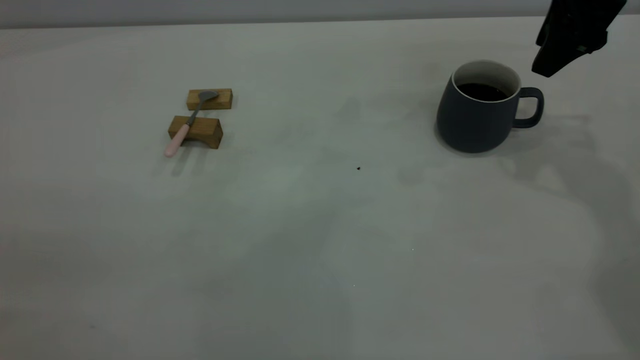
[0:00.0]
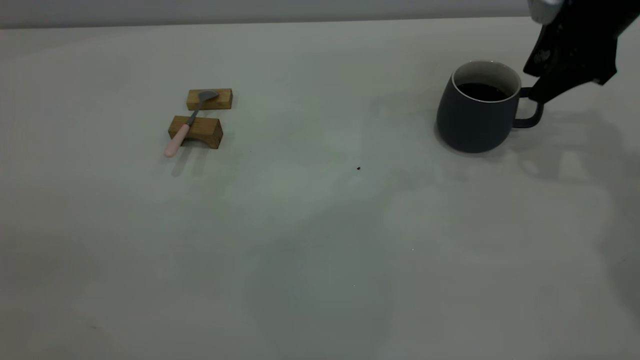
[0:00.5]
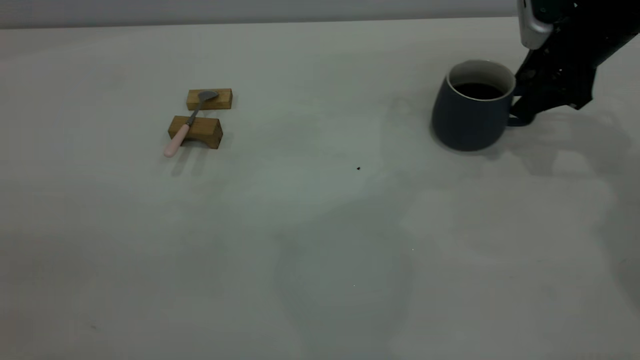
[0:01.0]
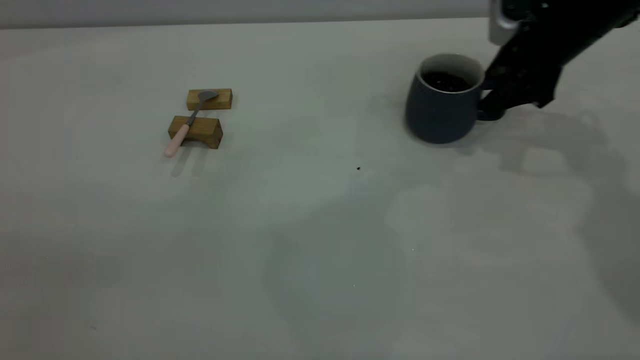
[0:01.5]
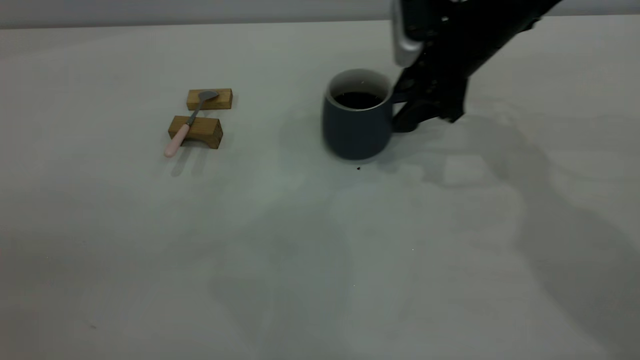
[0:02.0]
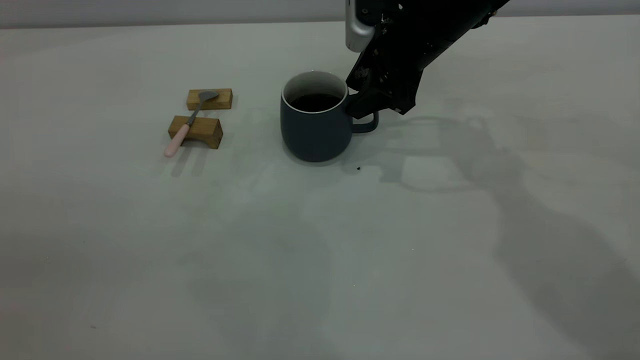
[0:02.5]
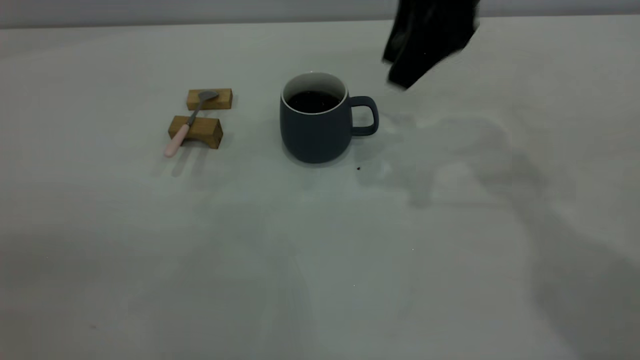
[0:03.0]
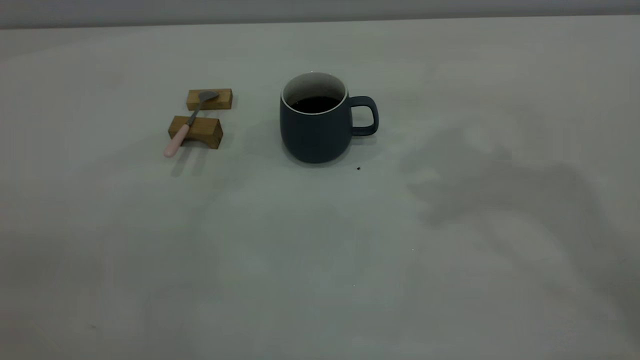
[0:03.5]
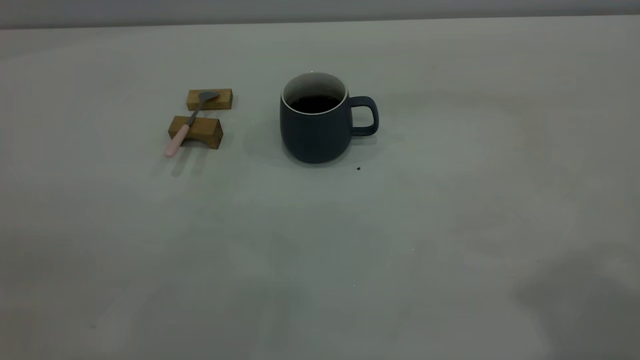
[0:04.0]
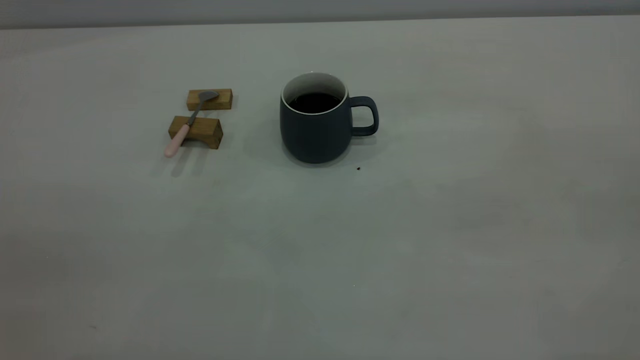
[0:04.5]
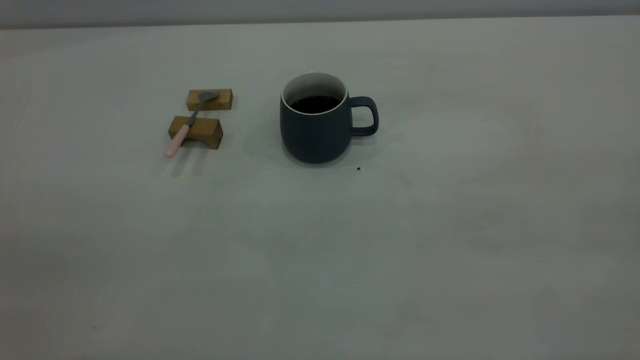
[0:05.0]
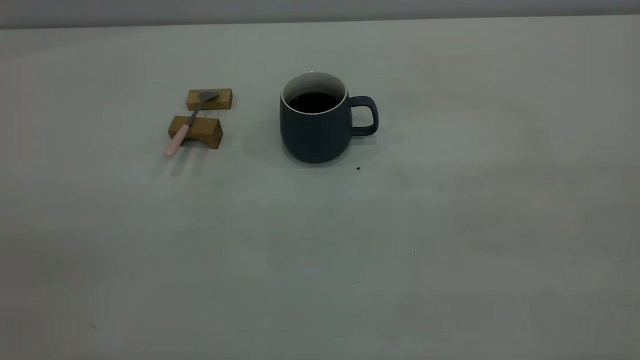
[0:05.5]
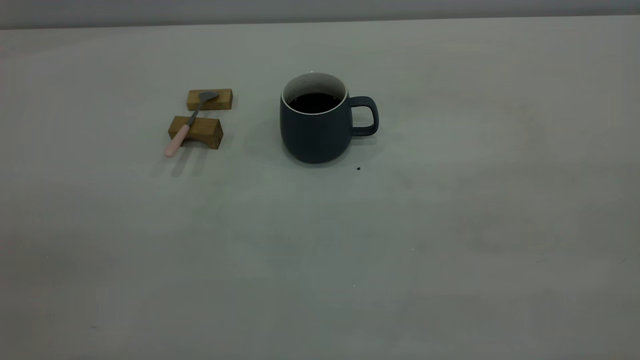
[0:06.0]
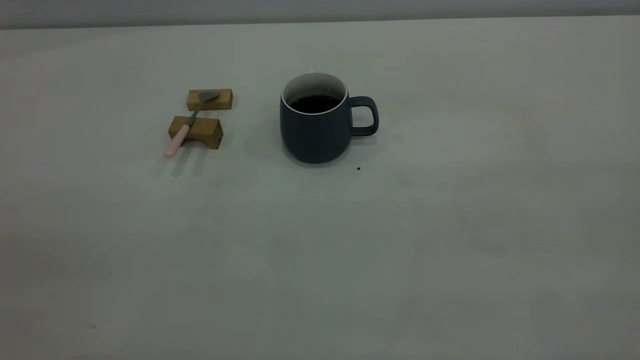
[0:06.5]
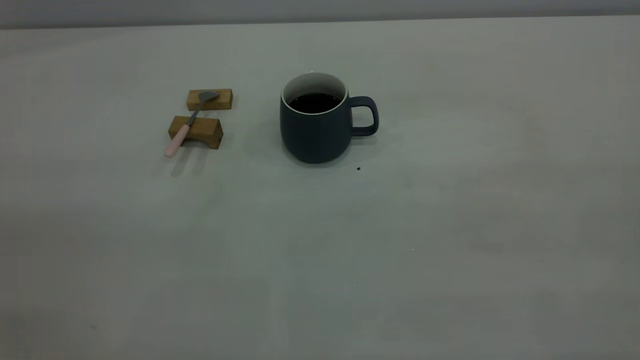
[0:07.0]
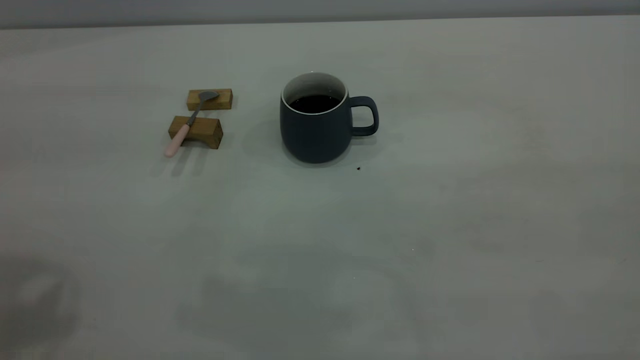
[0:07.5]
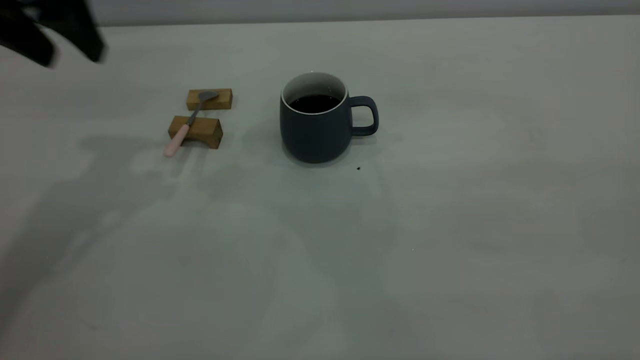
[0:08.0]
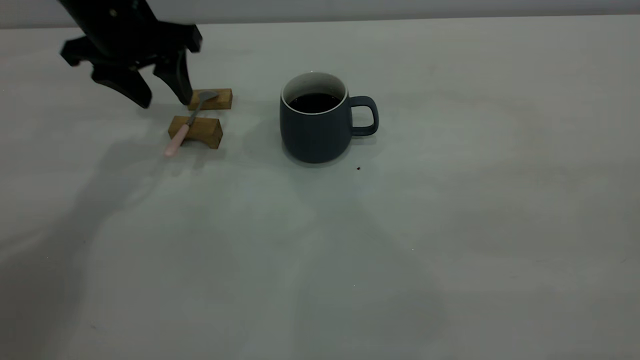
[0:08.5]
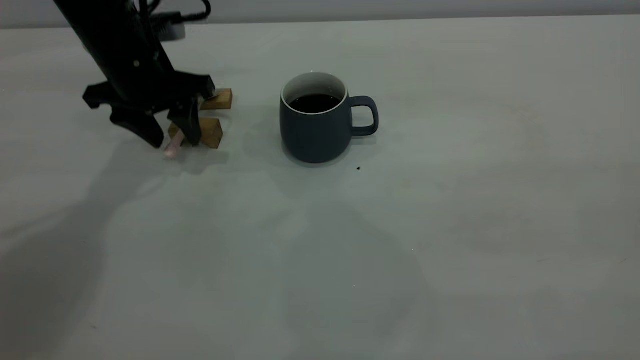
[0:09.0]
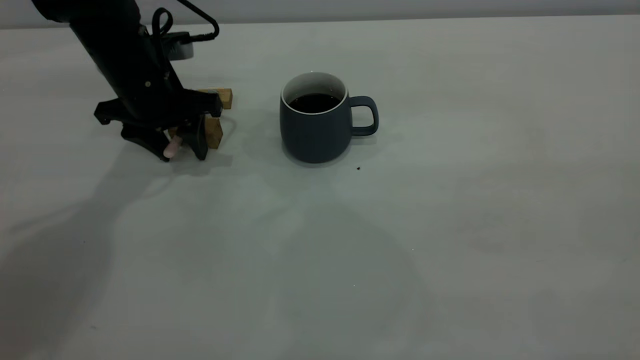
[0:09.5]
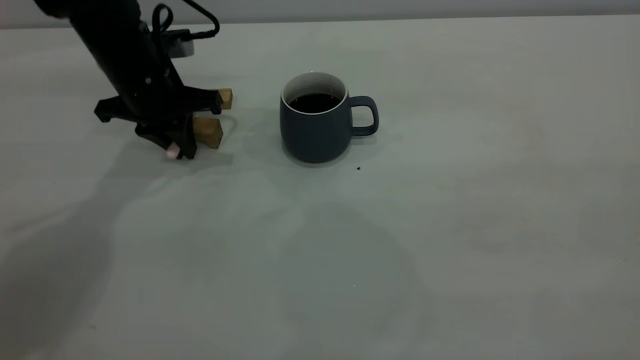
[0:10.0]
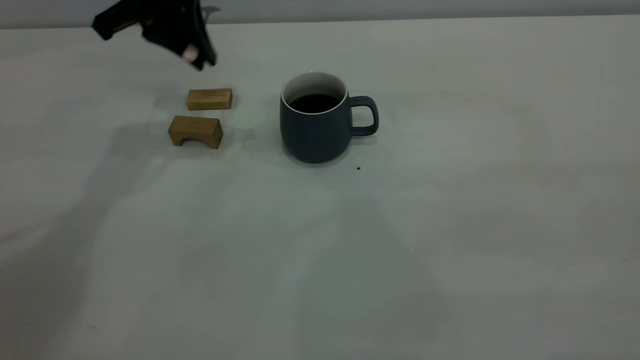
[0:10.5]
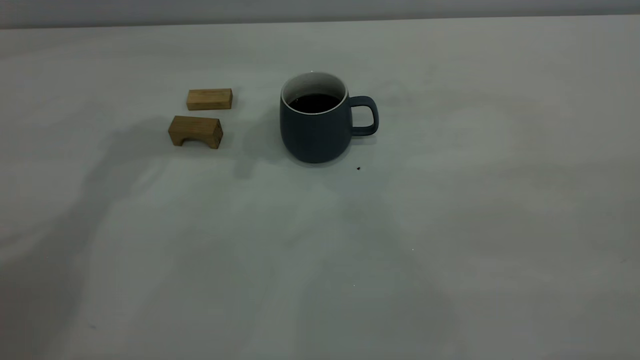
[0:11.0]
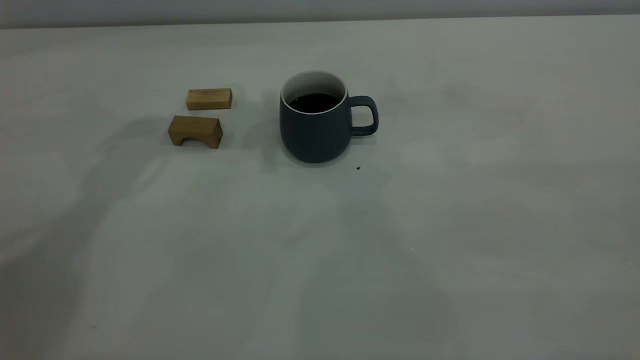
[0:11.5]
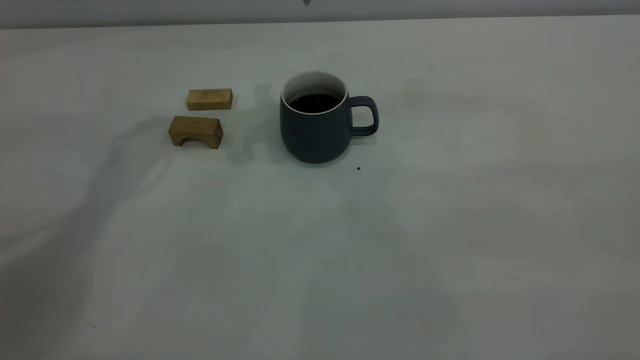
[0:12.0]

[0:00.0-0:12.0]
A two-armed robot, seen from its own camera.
Step, 0:00.0 to 0:02.5: Move the cup with coffee to the center of view.
Step, 0:03.0 to 0:10.0: Pick up the spoon.
0:00.0 to 0:02.0: The right gripper shifts some 15 cm to the left and downward.
0:02.0 to 0:04.0: The right gripper heads upward and backward, covering approximately 50 cm.
0:06.0 to 0:08.0: The left gripper is displaced forward by some 35 cm, and opens.
0:08.0 to 0:10.0: The left gripper shifts some 15 cm downward and forward, and closes.
0:10.0 to 0:12.0: The left gripper is displaced upward and to the right by approximately 20 cm.

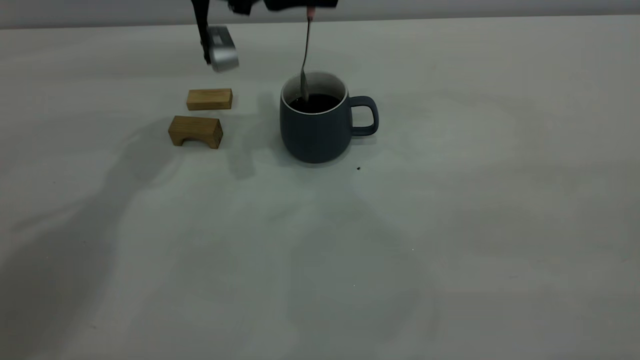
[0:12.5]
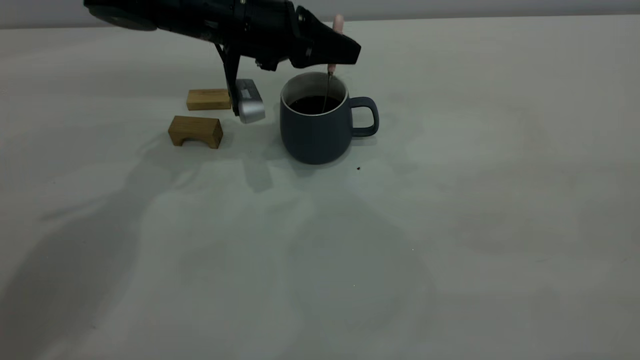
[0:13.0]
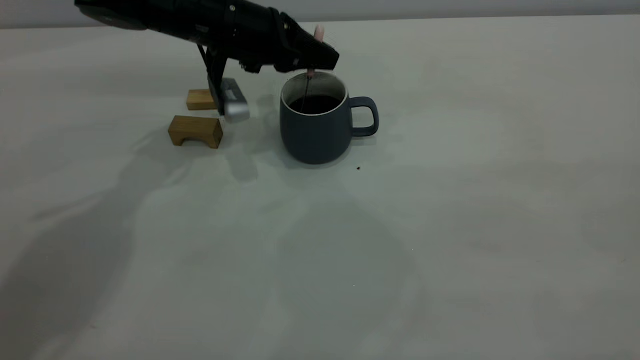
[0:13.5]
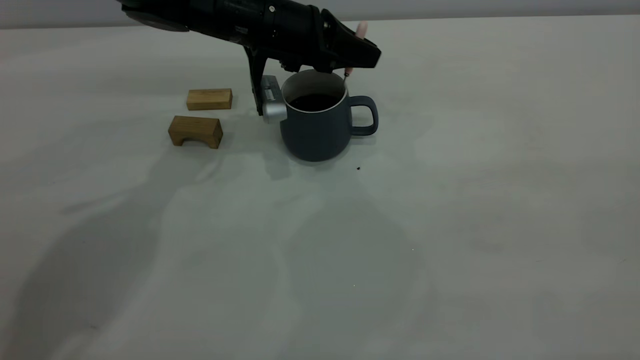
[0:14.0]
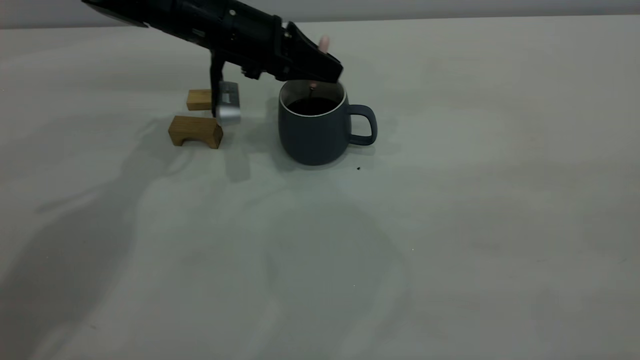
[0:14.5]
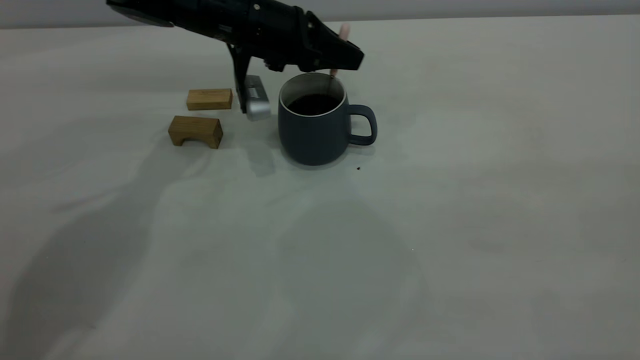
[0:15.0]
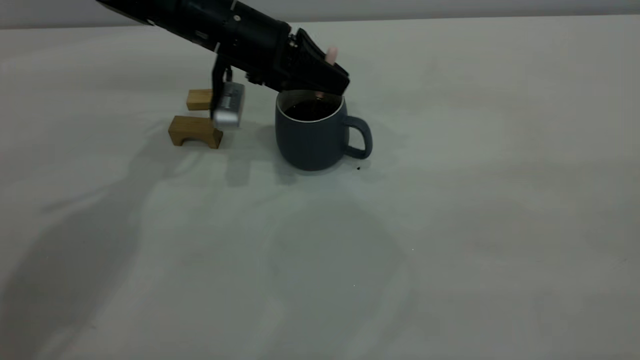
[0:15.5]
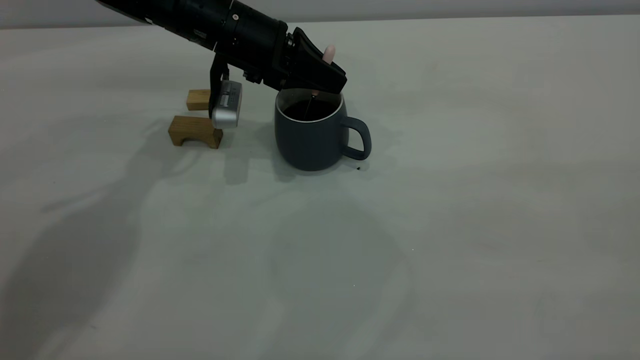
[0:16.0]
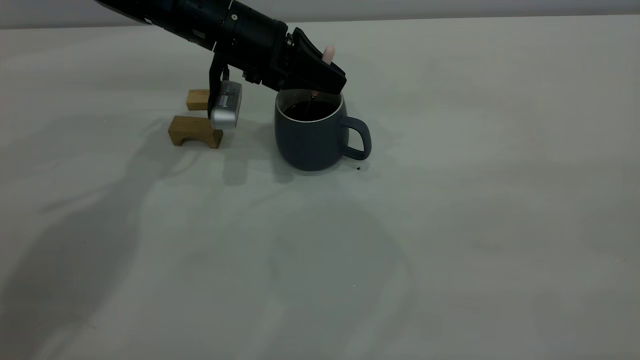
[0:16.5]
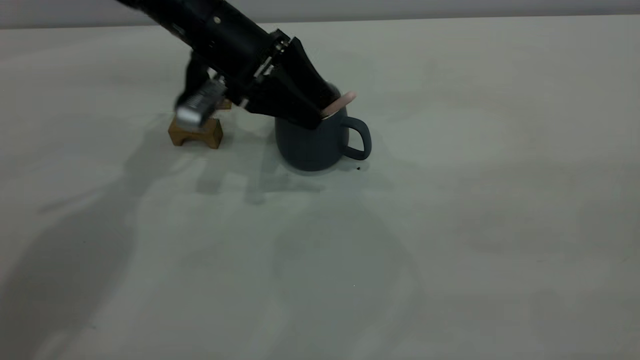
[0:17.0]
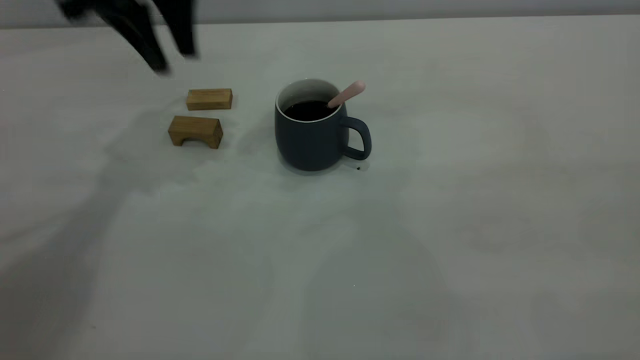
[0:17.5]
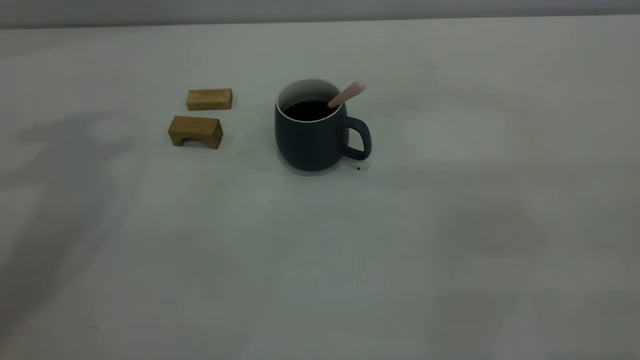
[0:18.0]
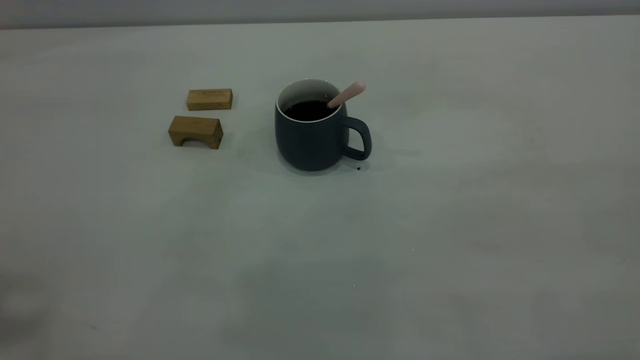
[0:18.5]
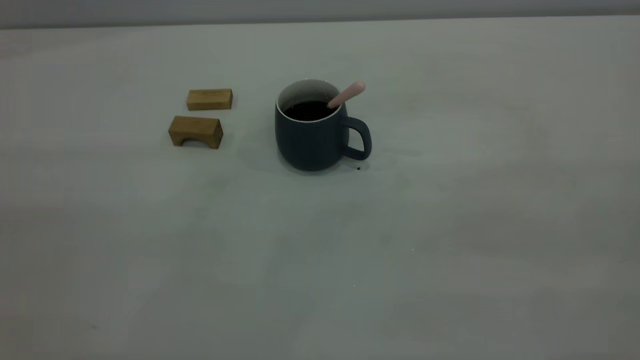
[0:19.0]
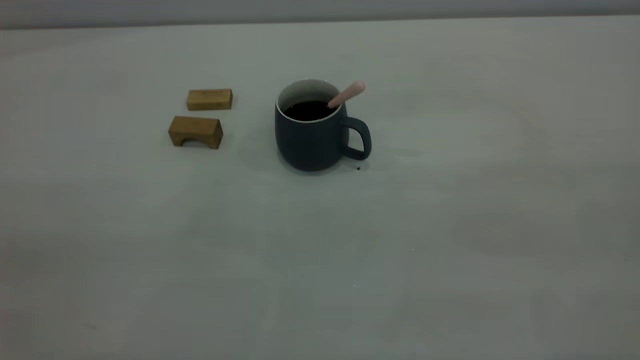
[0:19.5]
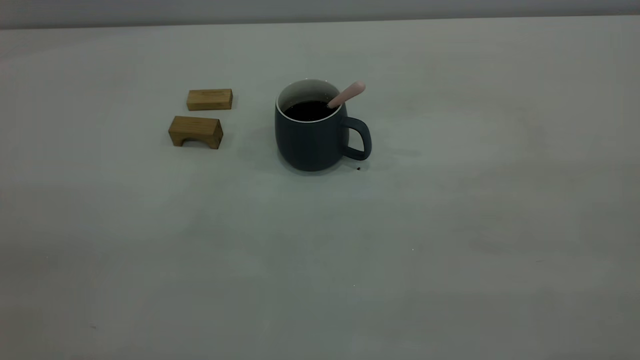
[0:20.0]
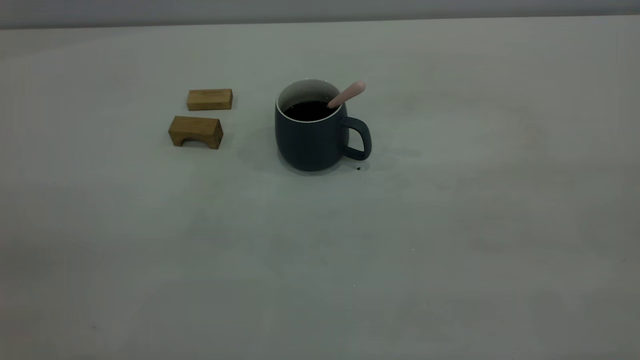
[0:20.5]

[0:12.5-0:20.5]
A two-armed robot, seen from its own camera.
Step, 0:12.5 to 0:17.0: Stir the coffee in the cup.
0:12.5 to 0:14.5: The left gripper goes about 5 cm downward.
0:14.5 to 0:16.5: The grippers move only a little.
0:16.5 to 0:18.5: The left gripper goes roughly 50 cm upward, backward and to the left, and opens, then closes once more.
